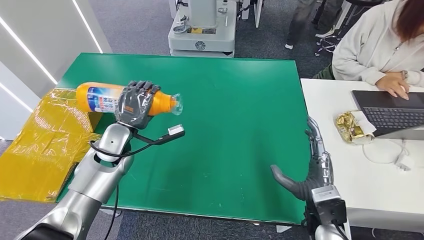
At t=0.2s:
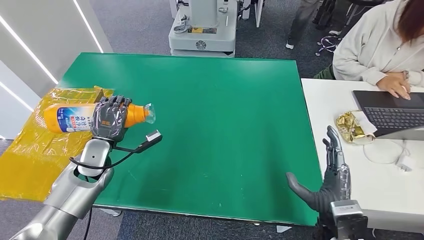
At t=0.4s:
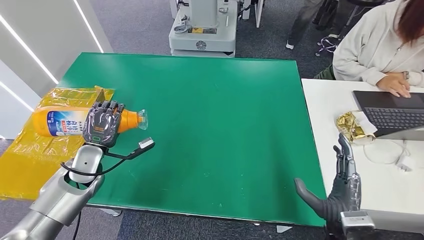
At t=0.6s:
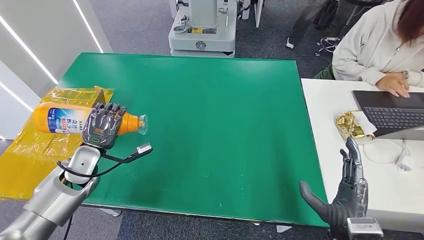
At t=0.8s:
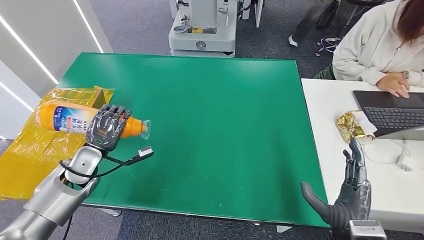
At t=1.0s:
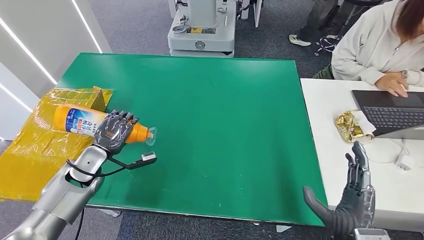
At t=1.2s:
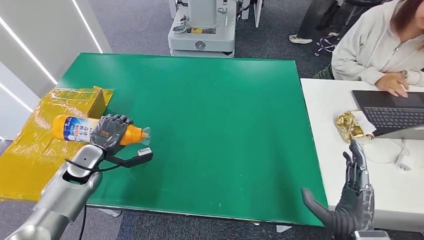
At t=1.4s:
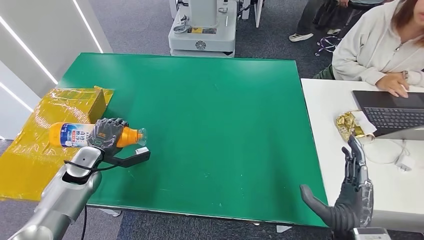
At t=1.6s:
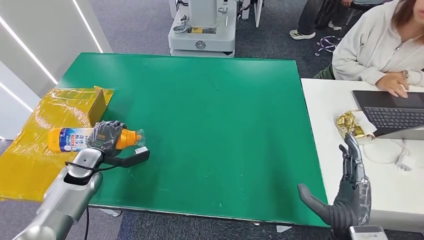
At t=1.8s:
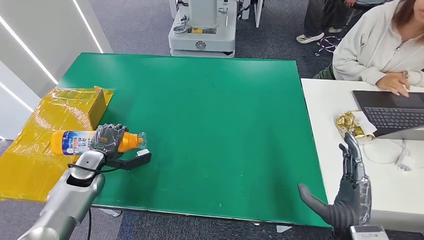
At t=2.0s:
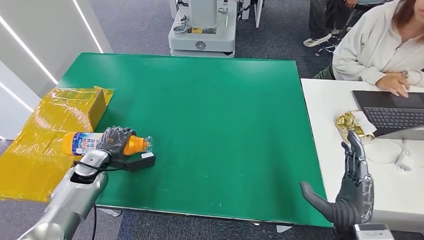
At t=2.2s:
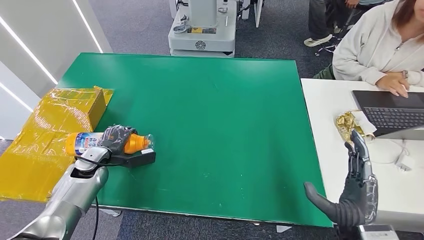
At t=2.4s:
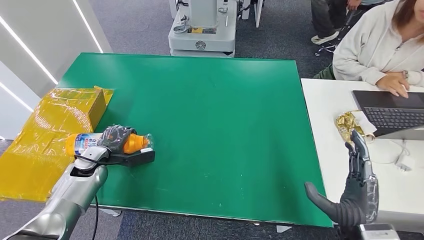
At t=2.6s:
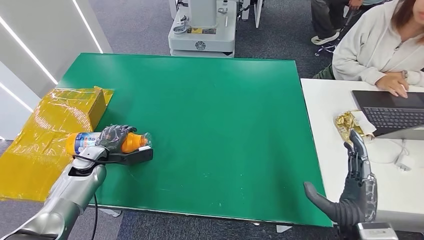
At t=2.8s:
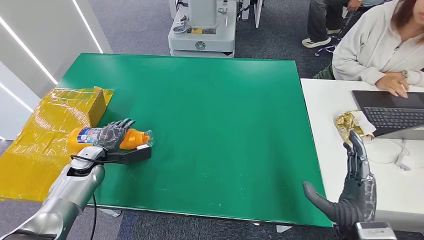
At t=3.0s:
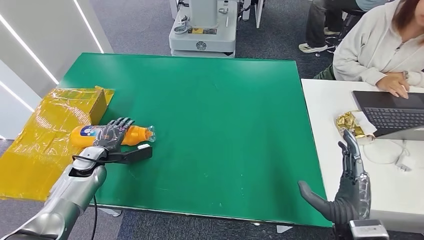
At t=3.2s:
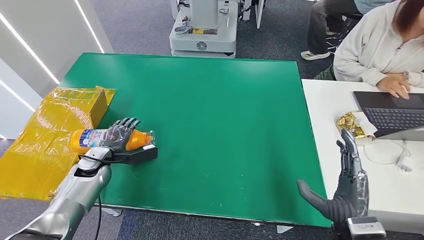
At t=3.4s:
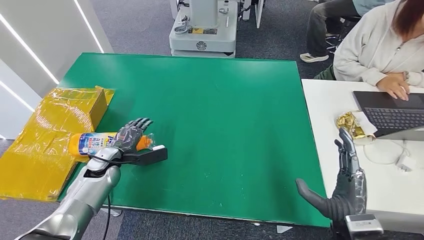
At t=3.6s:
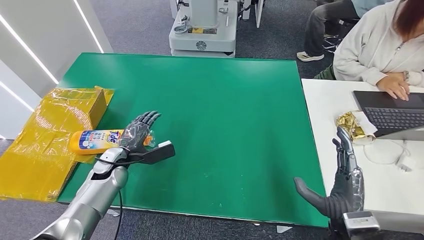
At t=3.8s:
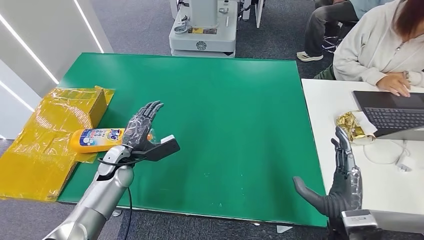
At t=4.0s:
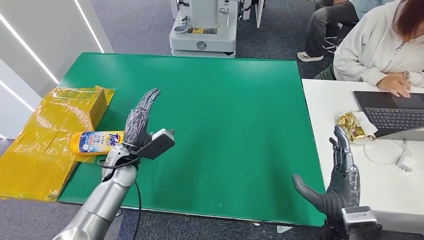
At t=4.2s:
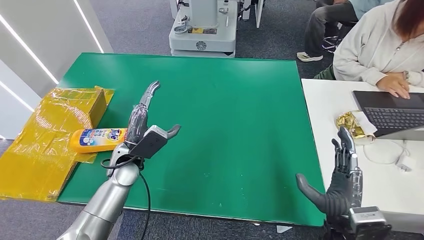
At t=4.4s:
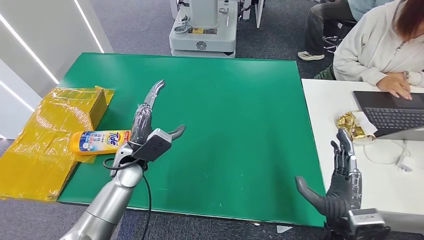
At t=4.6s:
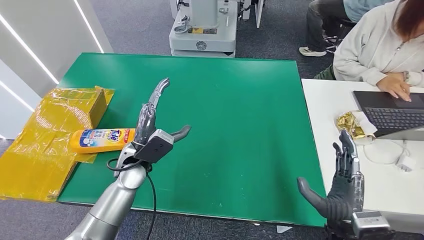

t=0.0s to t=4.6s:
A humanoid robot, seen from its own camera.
Step, t=0.0s to t=4.6s: Turn the bottle to the front side.
t=0.0s to t=1.6s: The right hand is displaced backward by about 5 cm. Meanwhile the left hand is displaced to the left and downward by approximately 15 cm.
t=1.6s to t=3.0s: The hands move only a little.
t=3.0s to t=4.6s: The left hand moves to the right and upward, some 20 cm.
